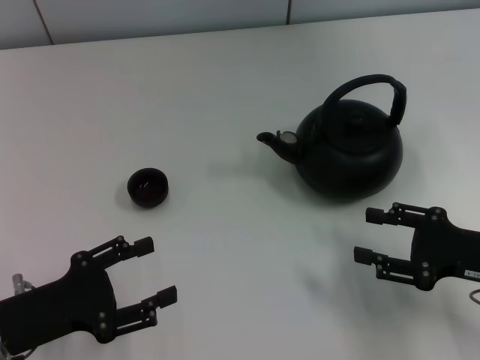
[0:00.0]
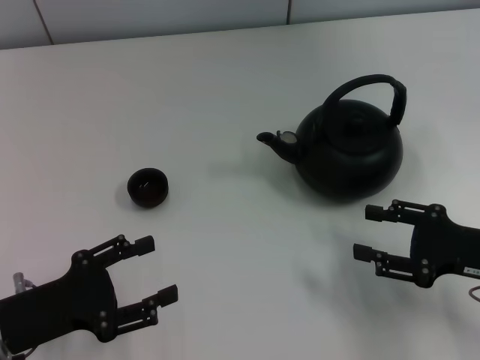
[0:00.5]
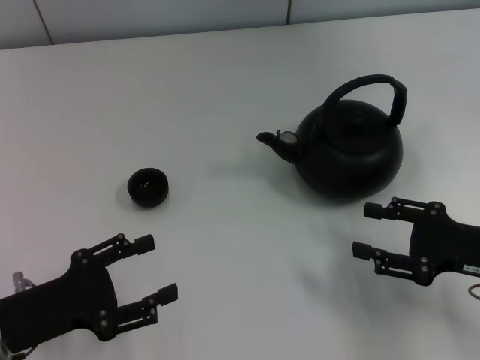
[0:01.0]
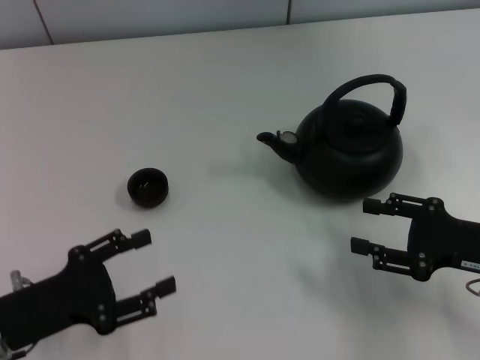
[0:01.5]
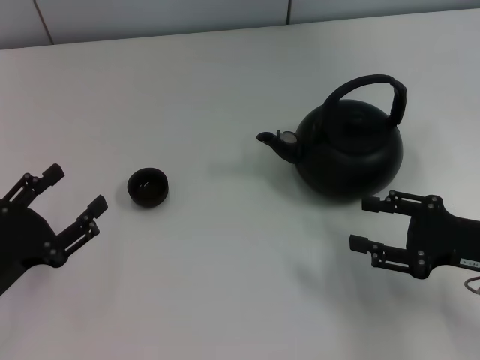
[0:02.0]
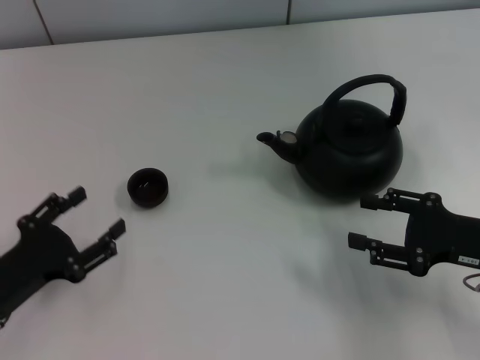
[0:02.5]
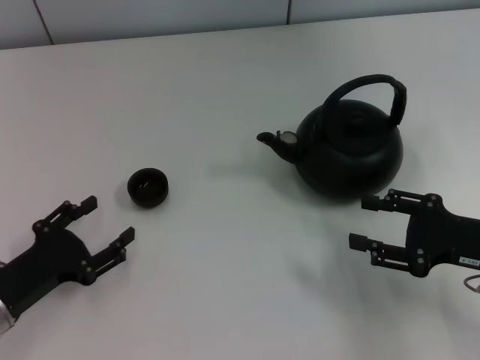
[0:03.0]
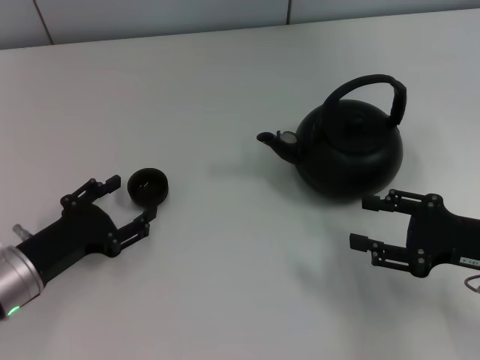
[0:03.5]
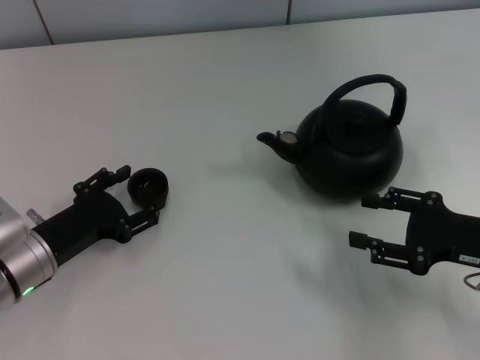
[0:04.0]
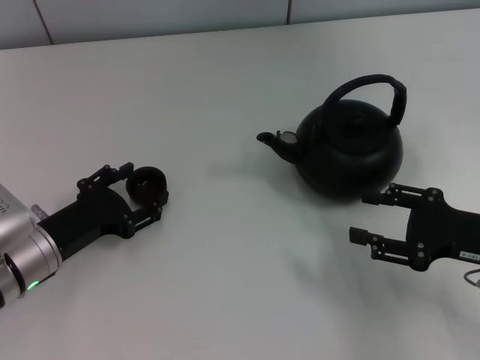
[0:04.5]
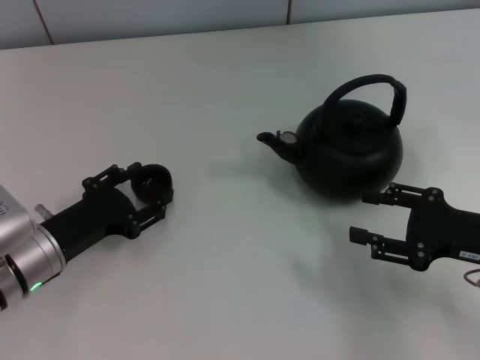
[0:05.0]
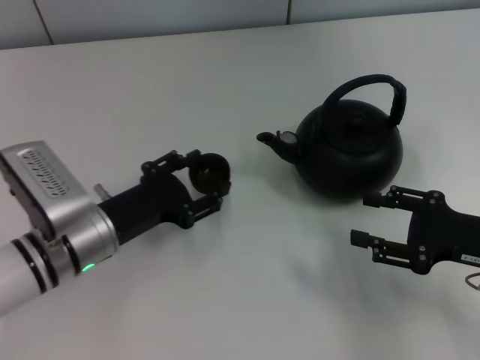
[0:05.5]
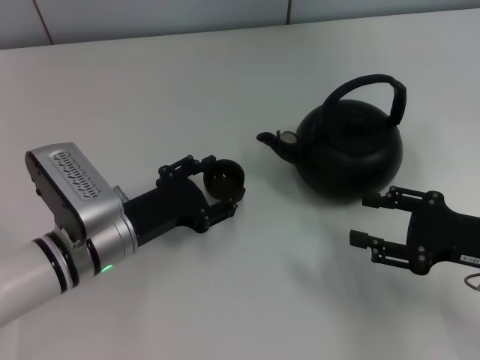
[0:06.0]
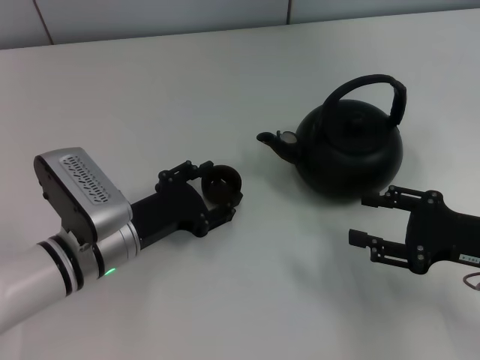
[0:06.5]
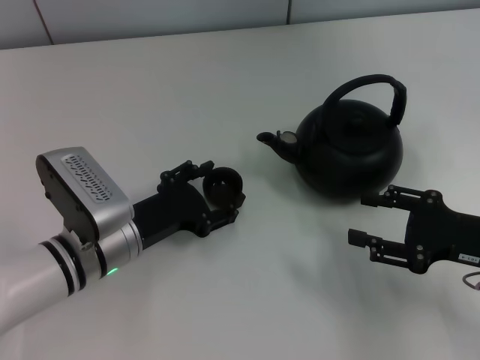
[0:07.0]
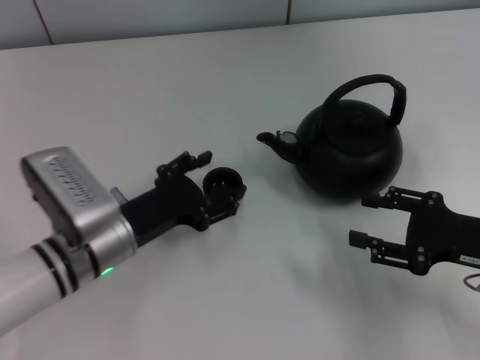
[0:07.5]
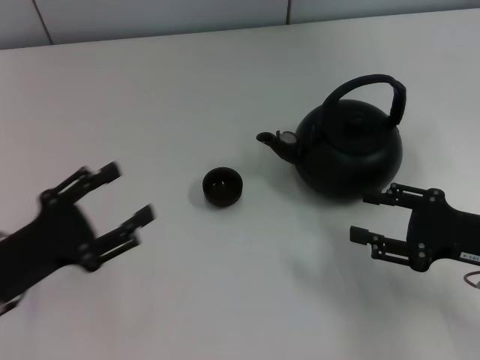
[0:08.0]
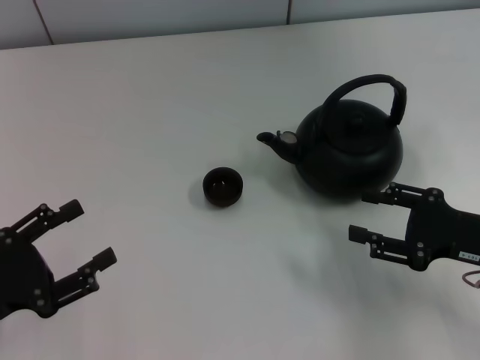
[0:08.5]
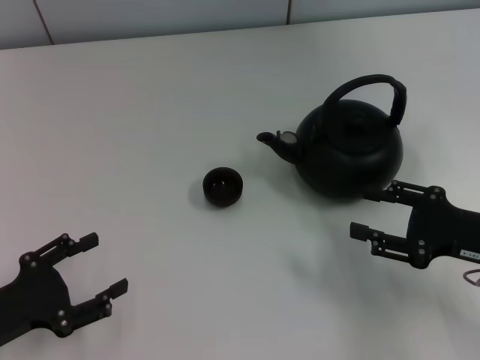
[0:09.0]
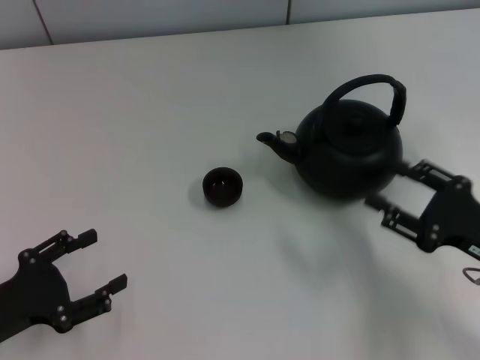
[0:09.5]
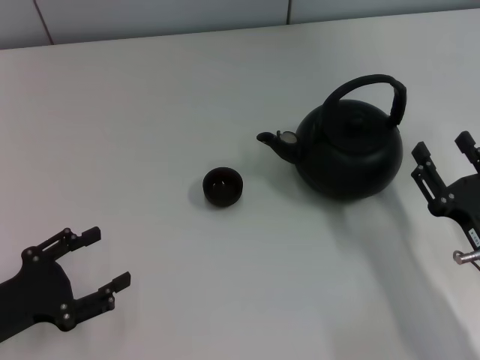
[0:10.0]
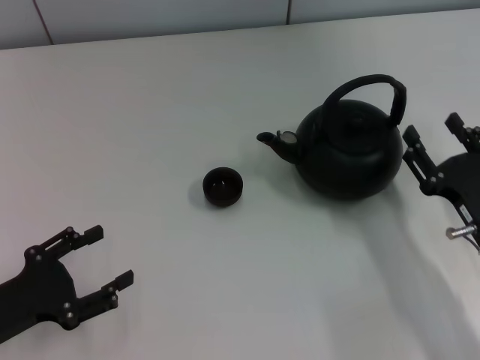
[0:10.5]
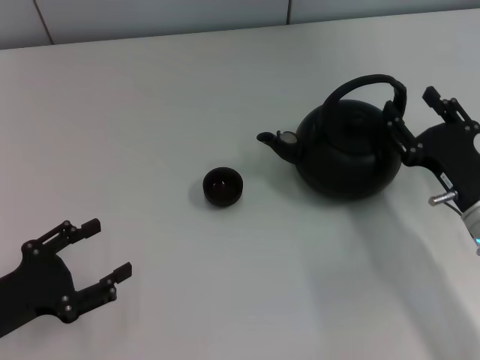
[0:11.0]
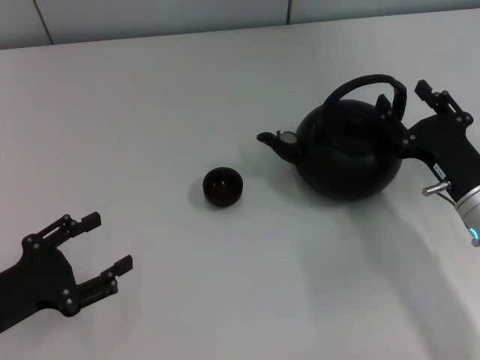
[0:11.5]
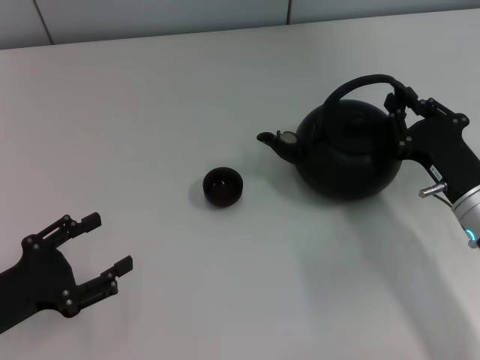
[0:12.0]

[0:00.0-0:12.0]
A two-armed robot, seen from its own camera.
Task of the whole recording: Grasp the handle of the teapot with one hand and pour tea into the teacup.
Step, 0:00.0 to 0:05.0: Pick up the teacup with the left gripper.
Step, 0:05.5 to 0:07.5: Place the teacup in the center of view with the left gripper.
0:02.0 to 0:04.0: The left gripper goes roughly 10 cm forward and to the right.
0:04.0 to 0:06.0: The left gripper is displaced to the right by roughly 10 cm.
0:06.0 to 0:08.0: The left gripper moves to the left and backward, about 10 cm.
0:08.0 to 0:10.0: The right gripper moves about 10 cm.
0:10.0 to 0:12.0: The right gripper moves forward, some 10 cm.

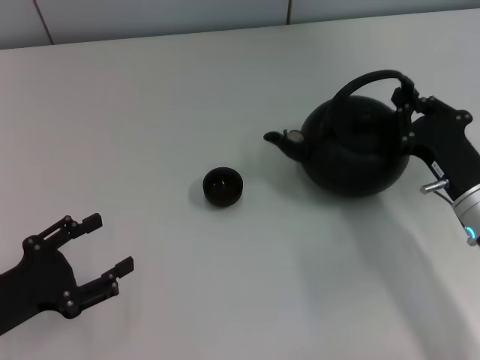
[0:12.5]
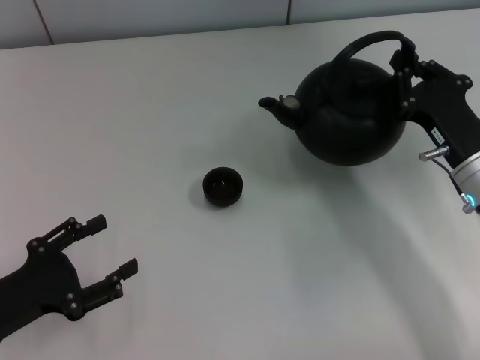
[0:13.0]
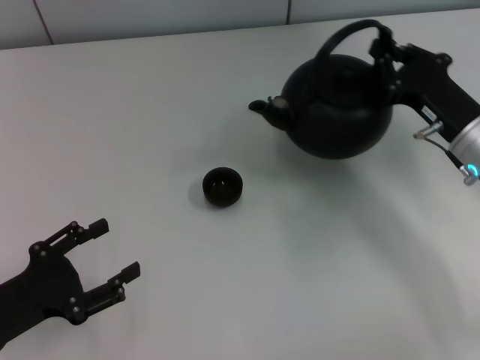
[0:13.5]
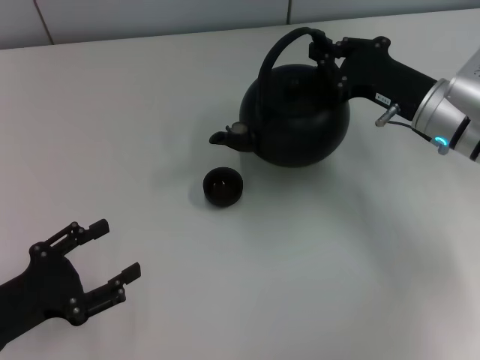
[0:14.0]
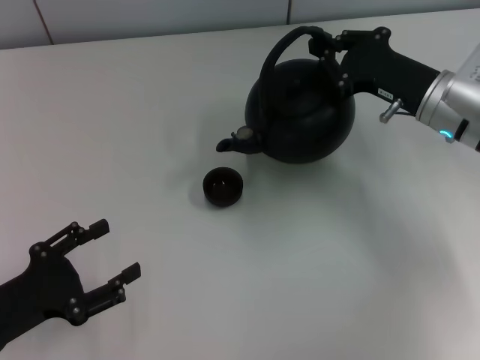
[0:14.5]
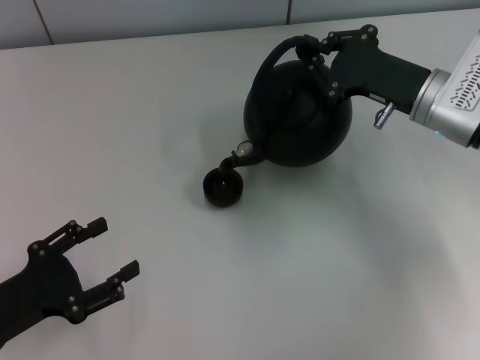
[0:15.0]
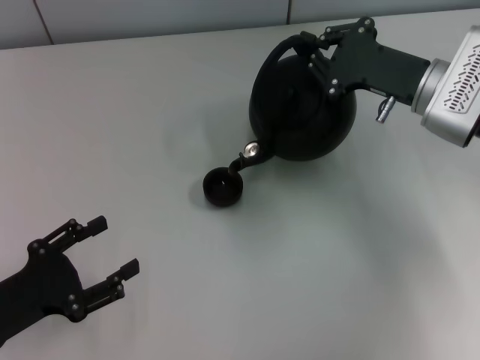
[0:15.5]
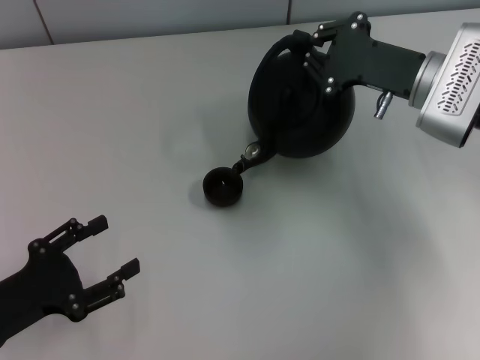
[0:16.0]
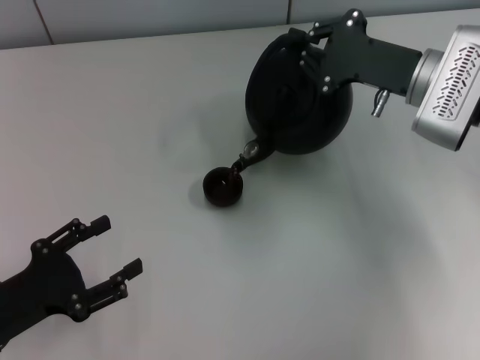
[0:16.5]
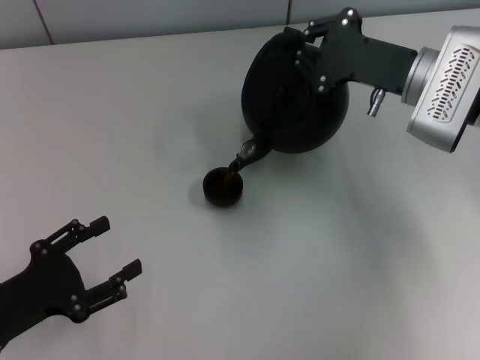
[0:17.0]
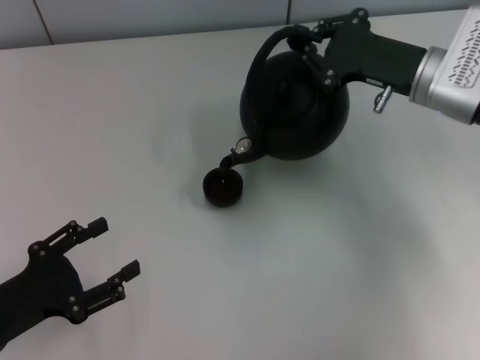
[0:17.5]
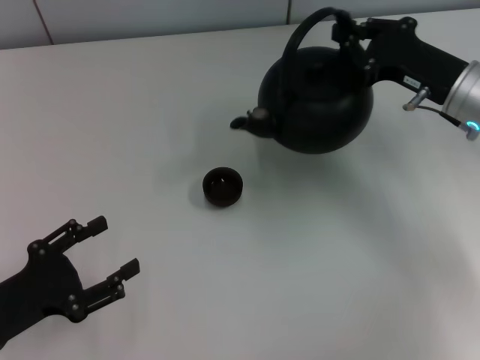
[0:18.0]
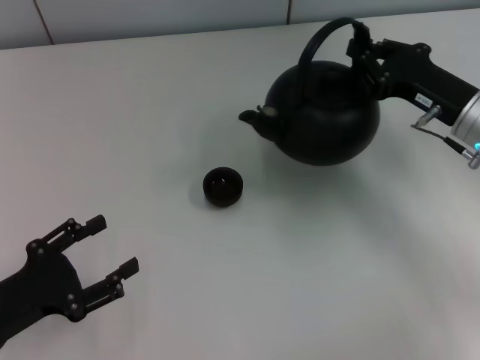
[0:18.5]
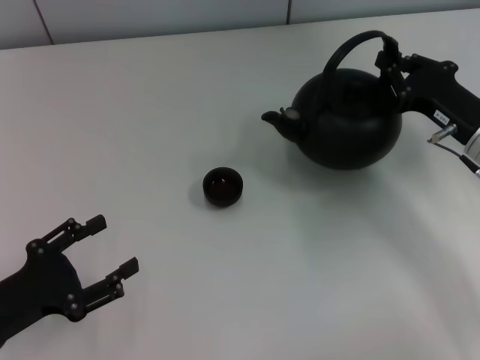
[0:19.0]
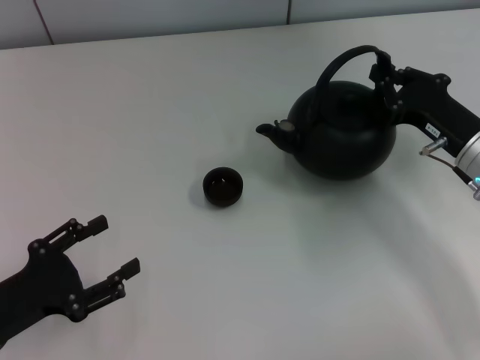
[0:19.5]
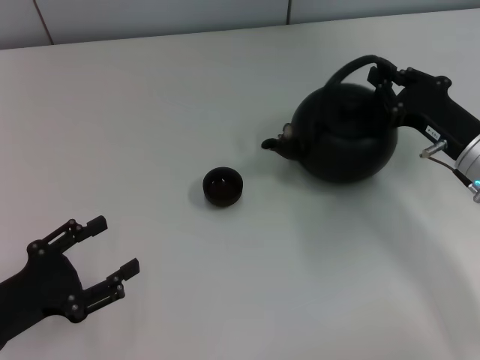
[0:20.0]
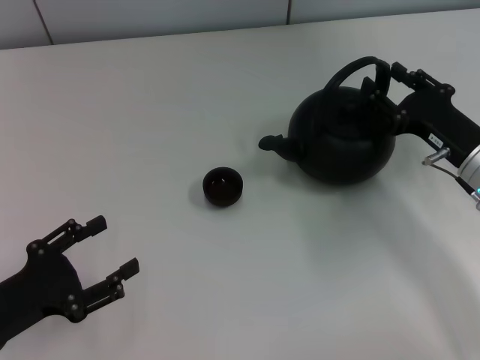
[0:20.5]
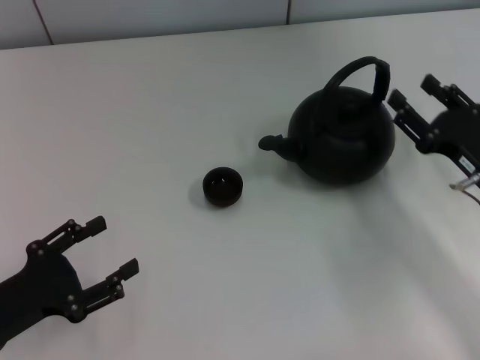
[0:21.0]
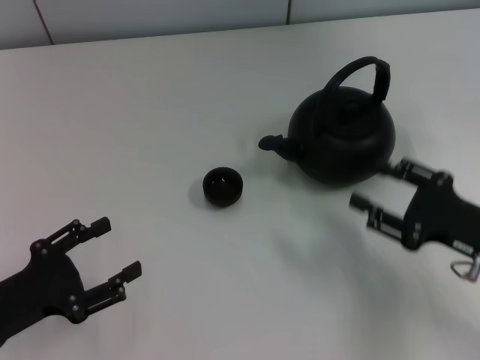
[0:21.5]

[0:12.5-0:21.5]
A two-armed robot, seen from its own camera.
Task of the whole recording: Grasp the handle of the teapot with one hand and pour tea into the teacup.
Step, 0:18.5 to 0:21.0: Put down the teapot with the right gripper.
0:12.5 to 0:14.5: The right gripper is displaced forward and upward by some 10 cm.
0:17.0 to 0:19.5: The right gripper travels backward and downward by about 10 cm.
0:19.5 to 0:21.5: The right gripper travels backward by some 10 cm, and opens up.

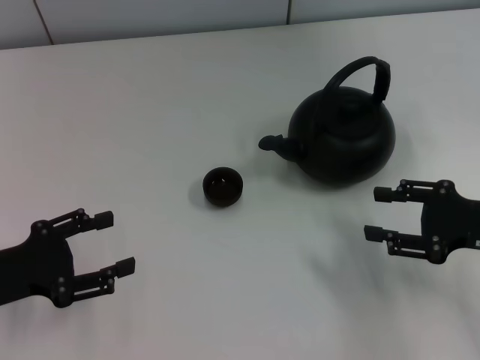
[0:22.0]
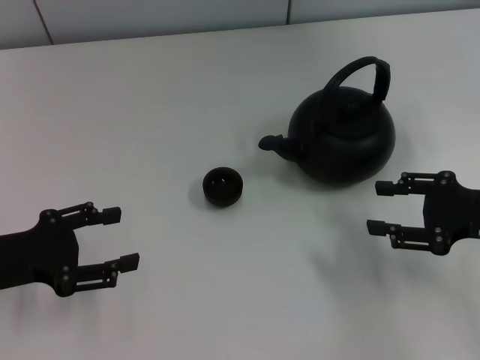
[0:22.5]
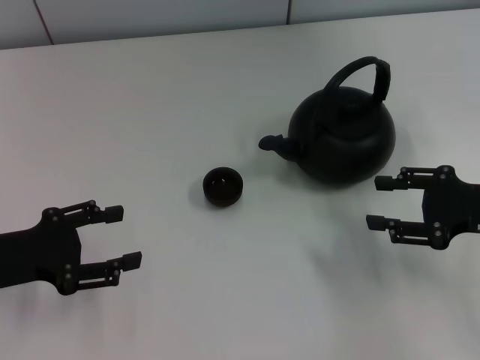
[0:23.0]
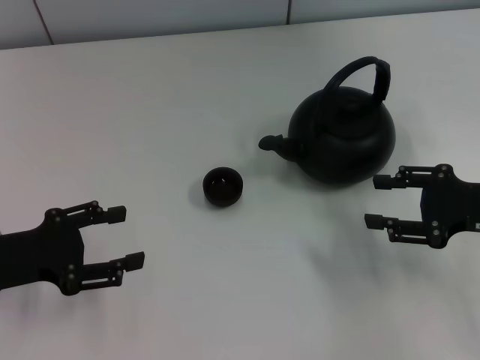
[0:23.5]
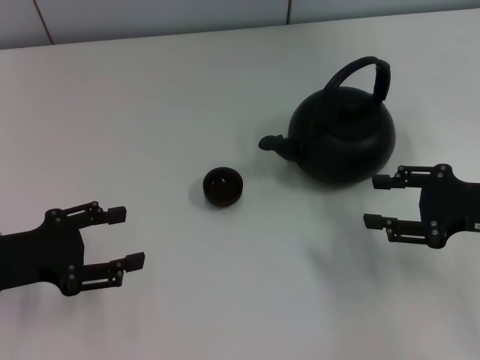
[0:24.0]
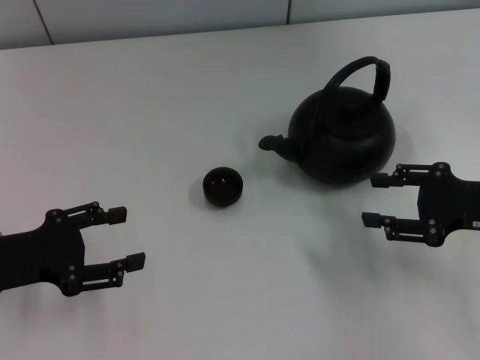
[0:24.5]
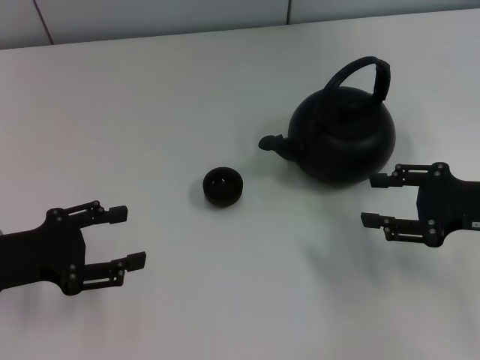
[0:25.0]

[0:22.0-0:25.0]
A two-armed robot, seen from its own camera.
Task of the whole recording: Grasp the handle of the teapot with one hand and pour tea into the teacup.
0:22.0 to 0:23.5: There are only small adjustments of the grippers.
0:23.5 to 0:25.0: Both grippers stay about where they are.
